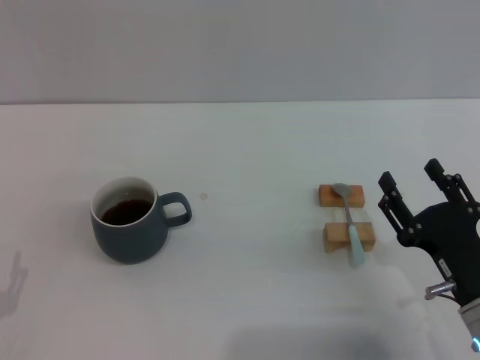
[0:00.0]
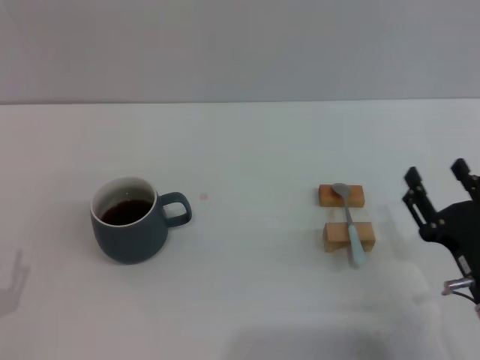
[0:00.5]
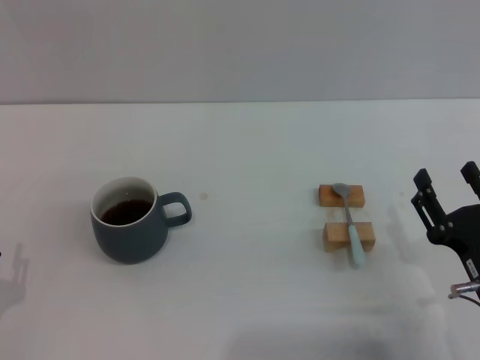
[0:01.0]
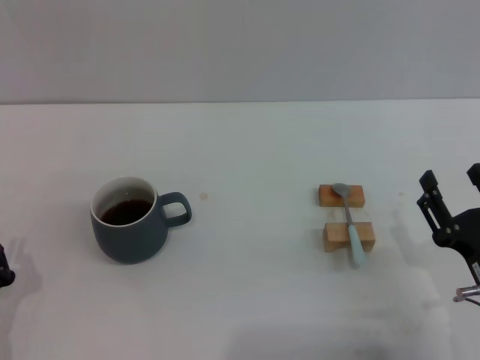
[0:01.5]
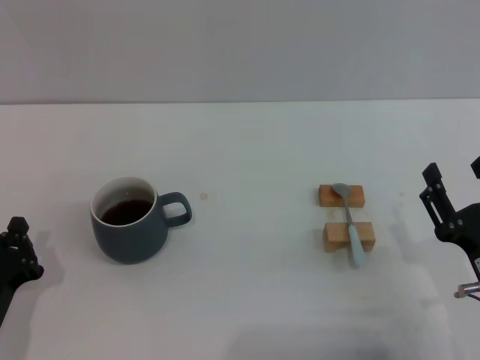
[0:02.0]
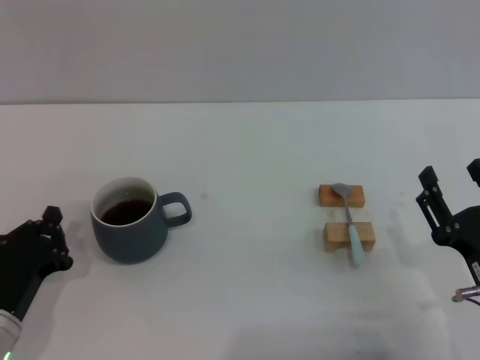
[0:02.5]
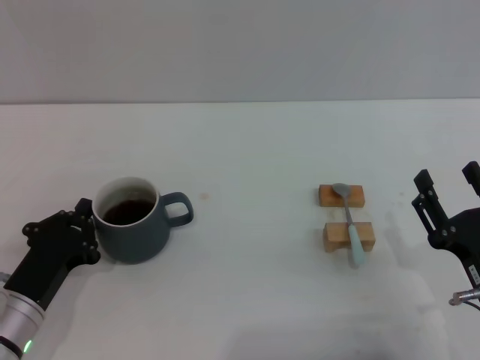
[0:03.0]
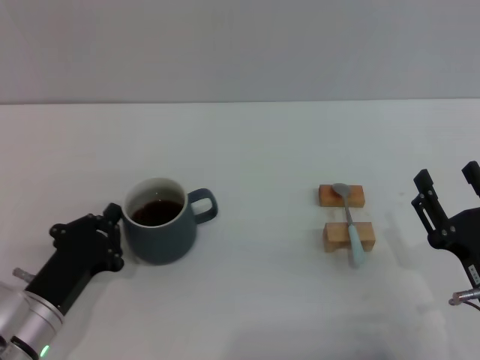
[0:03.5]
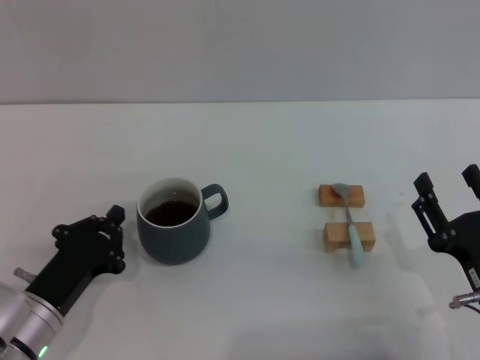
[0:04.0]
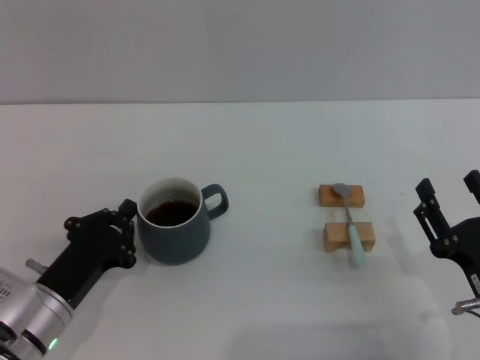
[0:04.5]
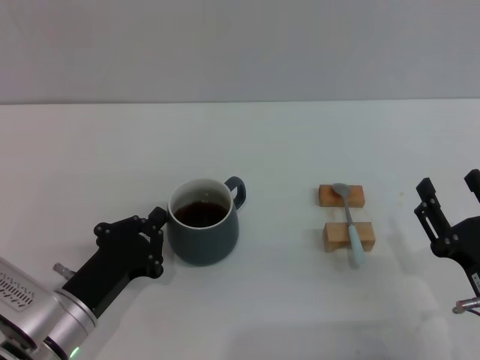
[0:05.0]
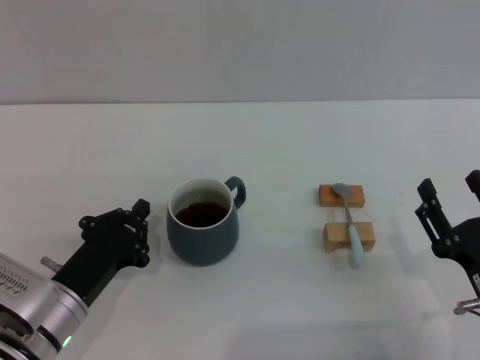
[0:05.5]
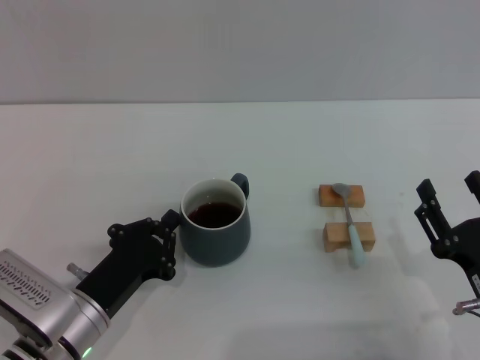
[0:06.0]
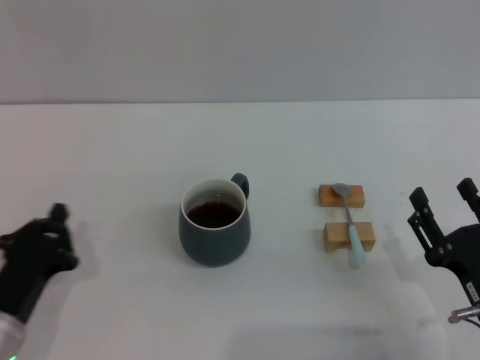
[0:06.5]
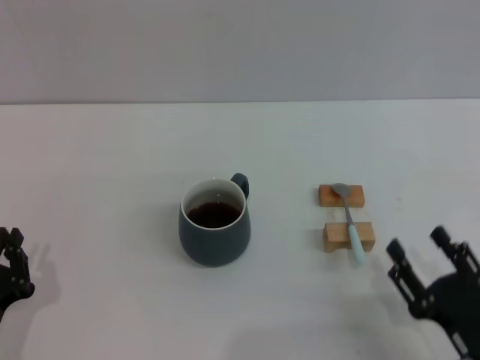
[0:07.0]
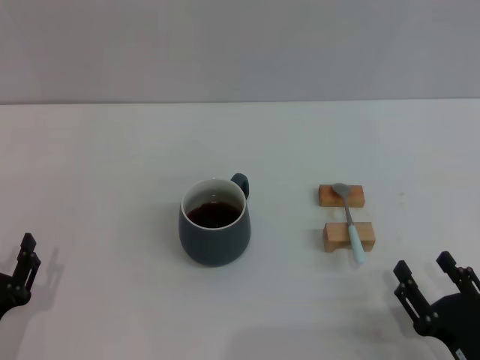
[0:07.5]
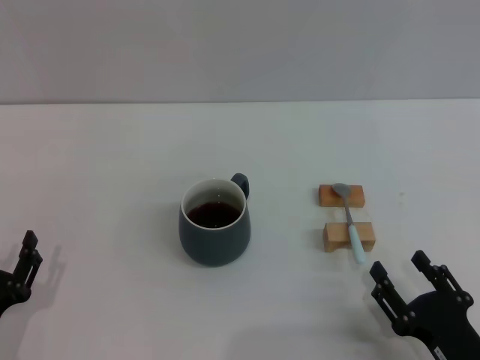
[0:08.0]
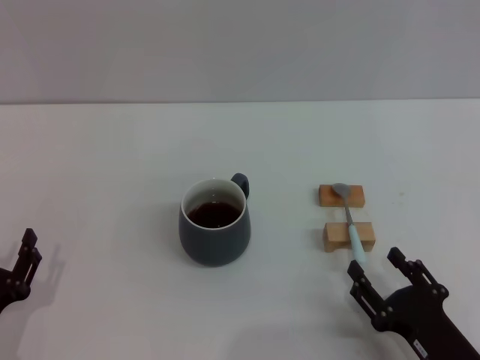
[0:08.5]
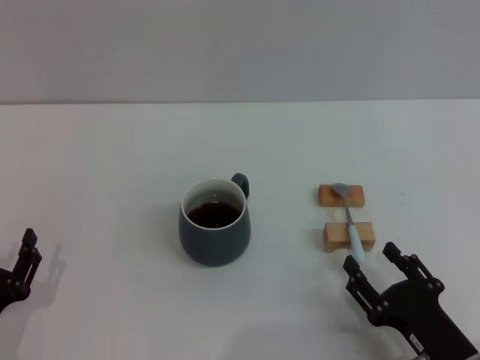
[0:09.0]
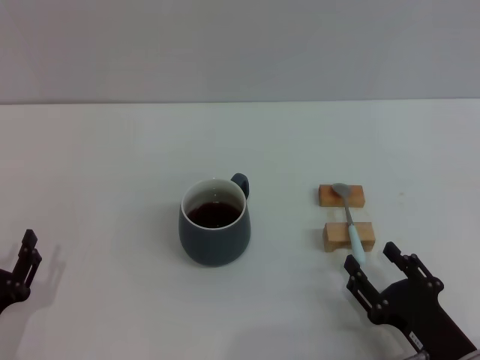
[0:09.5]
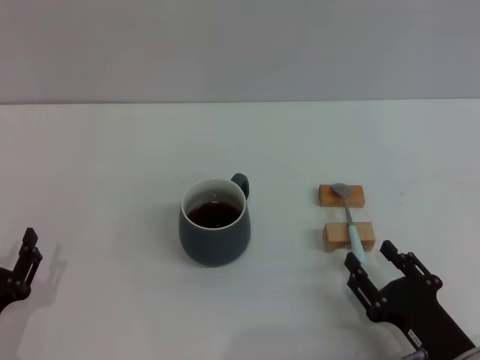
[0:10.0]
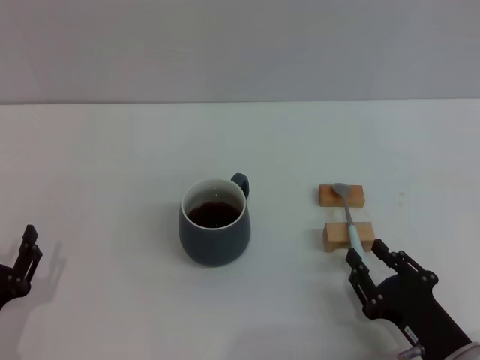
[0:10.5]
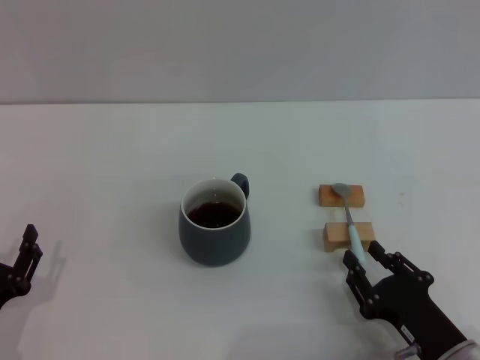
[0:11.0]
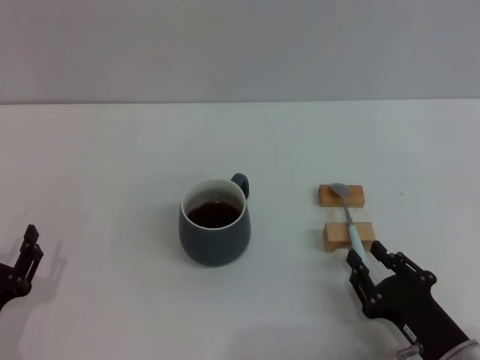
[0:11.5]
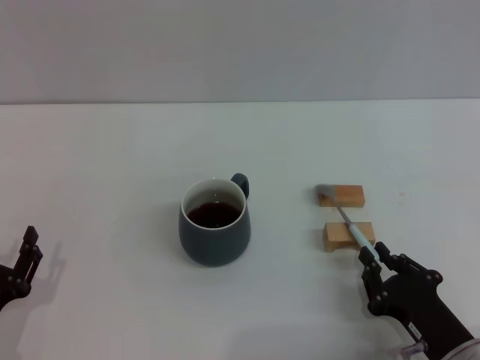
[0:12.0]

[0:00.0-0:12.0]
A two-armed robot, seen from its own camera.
Task of the whole recording: Move the grey cup to the center, lift the blue spoon, stir it three times in the cup, and put the spoon into the cup.
Step, 0:00.0 to 0:06.0: Move the cup with coffee to the center of view with the left gripper.
0:00.0 to 0:02.0: The left gripper moves roughly 5 cm, and closes up.
0:02.0 to 0:04.0: The left gripper ends up about 5 cm from where it was.
0:04.0 to 0:06.0: There are only small adjustments of the grippers.
0:06.0 to 0:08.0: The left gripper is displaced to the left and backward by approximately 10 cm, and opens its fingers. Meanwhile the right gripper shifts by some 5 cm.
0:08.0 to 0:10.0: The grippers move only a little.
0:10.0 to 0:12.0: The right gripper closes up.

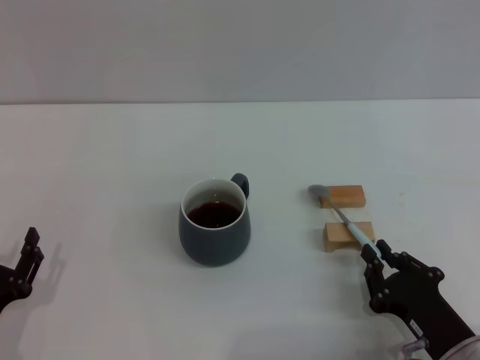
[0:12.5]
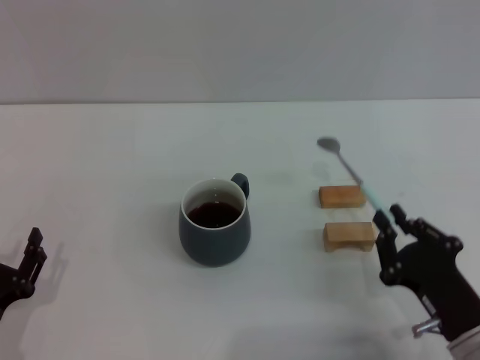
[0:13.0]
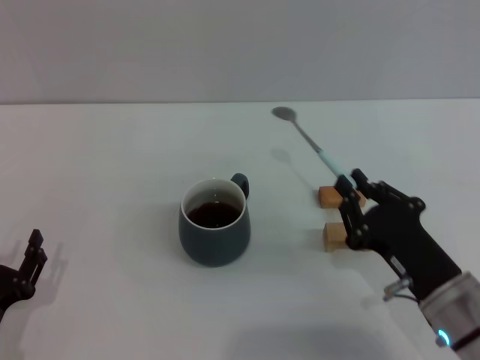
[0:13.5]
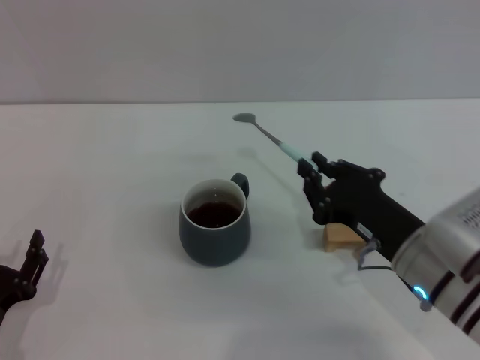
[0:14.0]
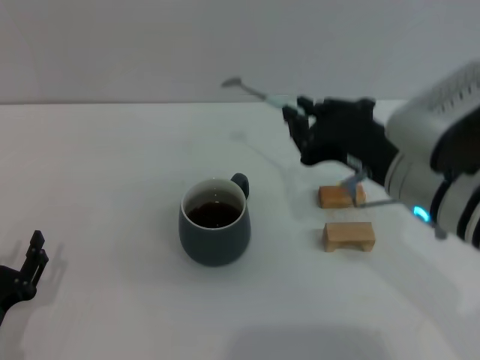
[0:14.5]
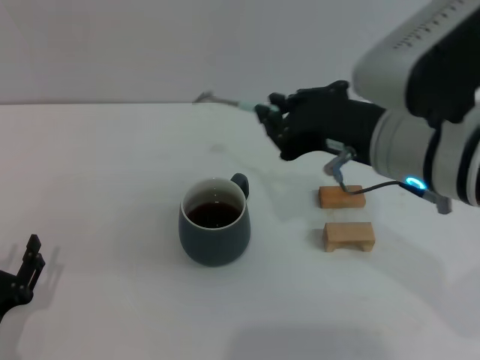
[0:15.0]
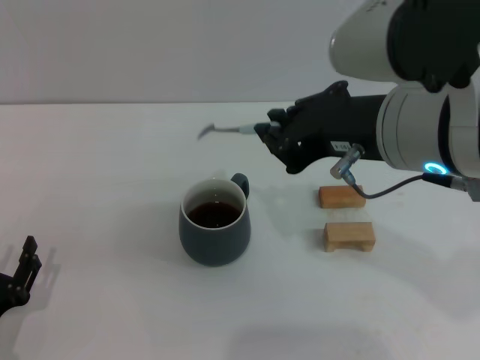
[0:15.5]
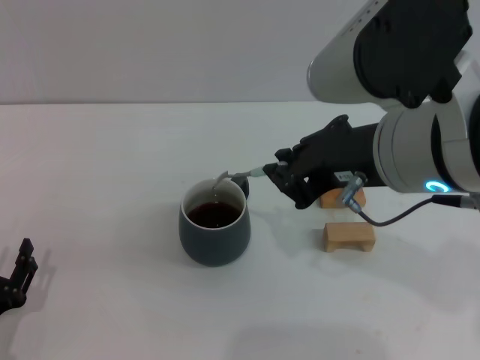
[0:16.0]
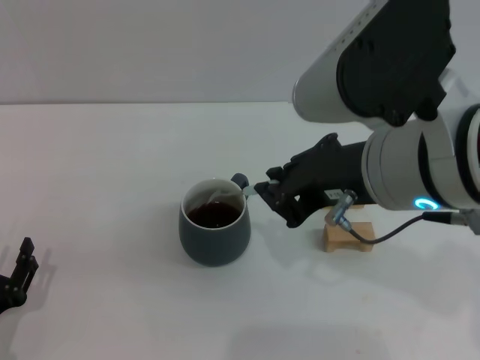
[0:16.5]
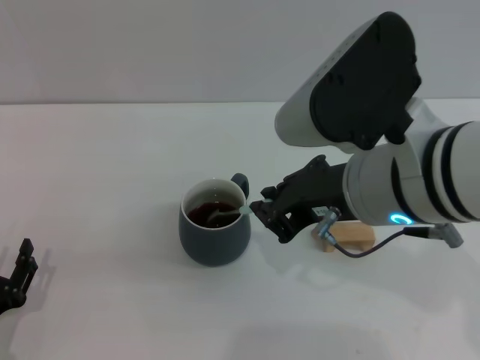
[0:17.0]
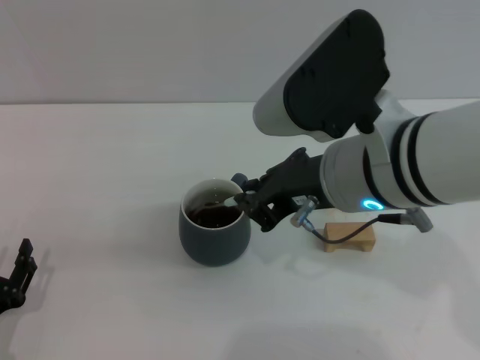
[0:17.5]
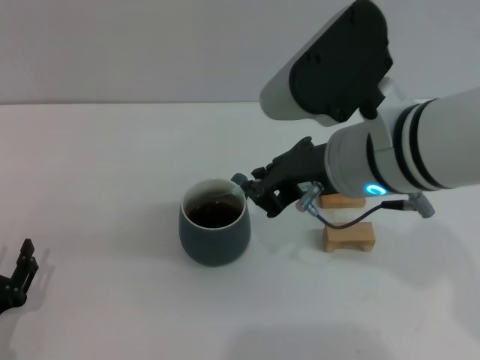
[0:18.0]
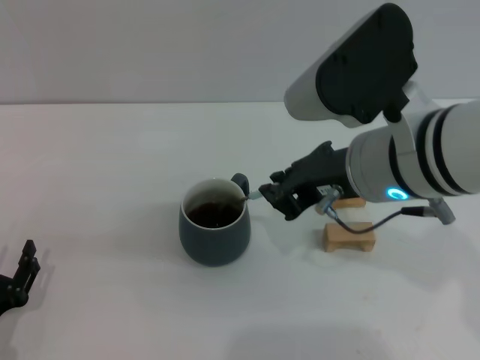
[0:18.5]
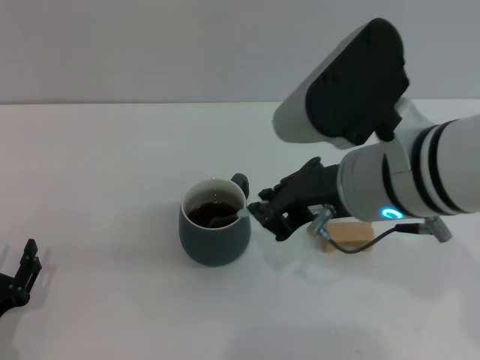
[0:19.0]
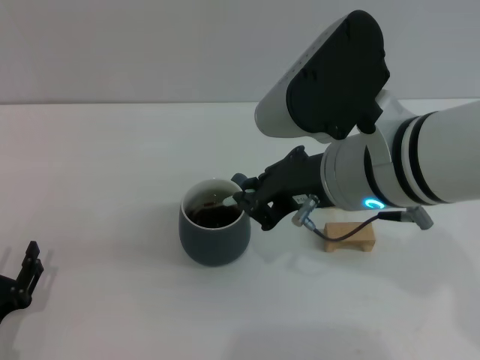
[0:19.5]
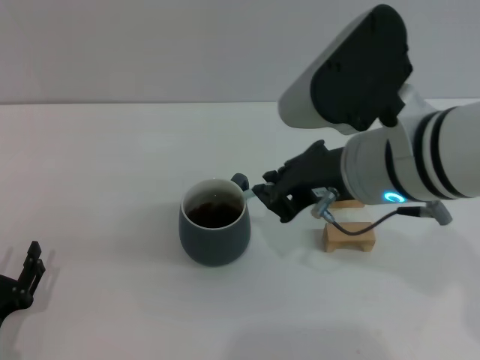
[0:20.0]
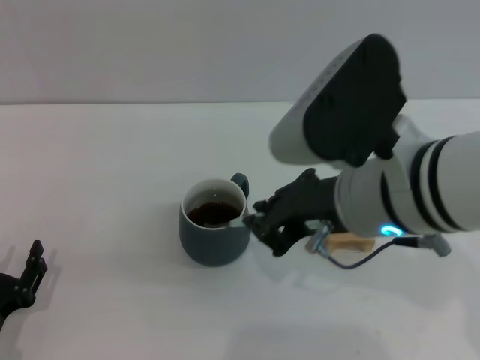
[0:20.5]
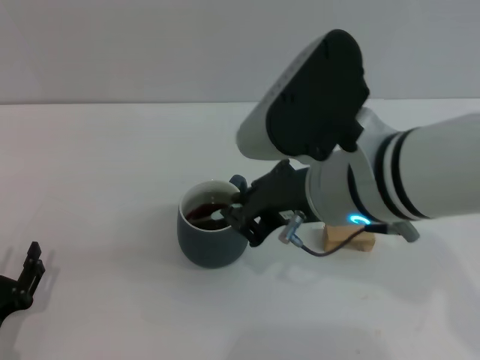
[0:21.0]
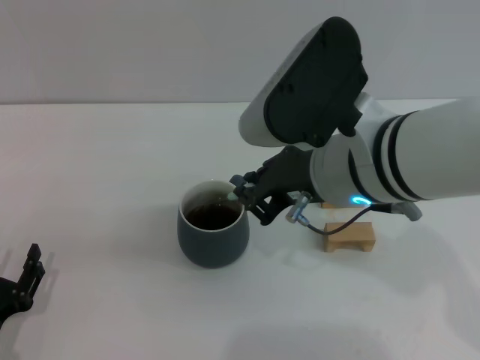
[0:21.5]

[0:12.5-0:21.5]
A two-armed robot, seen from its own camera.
Task of the whole recording: Move the grey cup to the center, lift the blue spoon, stir it three times in the cup, and put the spoon into the cup.
0:12.5 to 0:14.5: The right gripper moves upward and forward, approximately 20 cm.
0:14.5 to 0:17.0: The right gripper moves about 5 cm.
0:17.0 to 0:21.5: The grippers stay close to where they were, moving slightly.

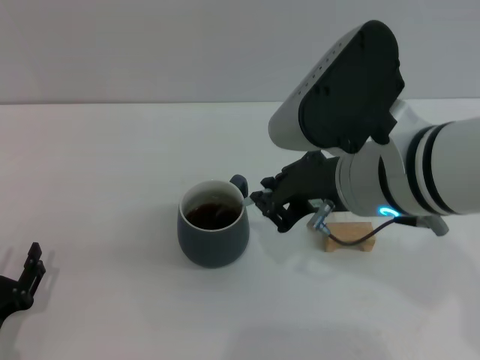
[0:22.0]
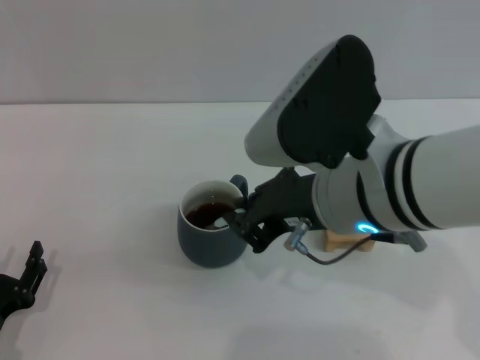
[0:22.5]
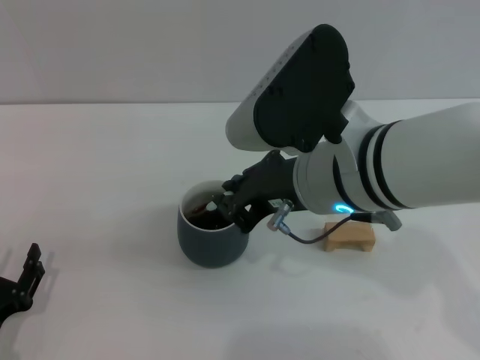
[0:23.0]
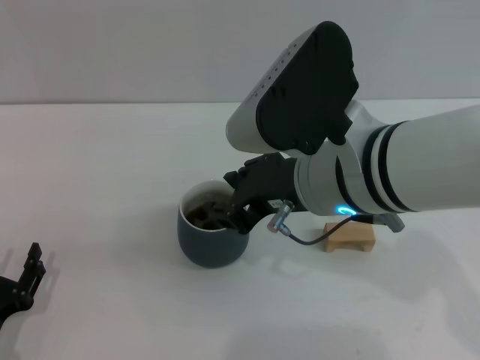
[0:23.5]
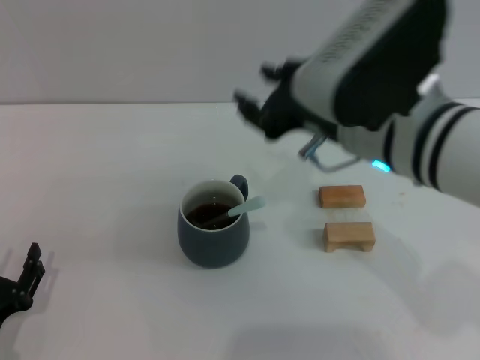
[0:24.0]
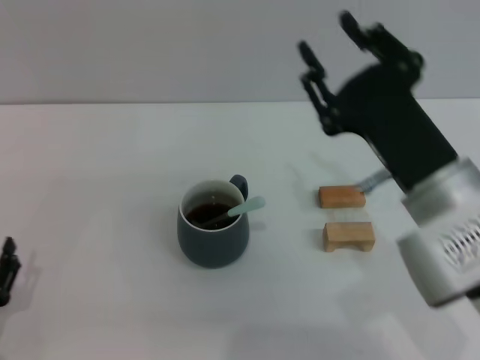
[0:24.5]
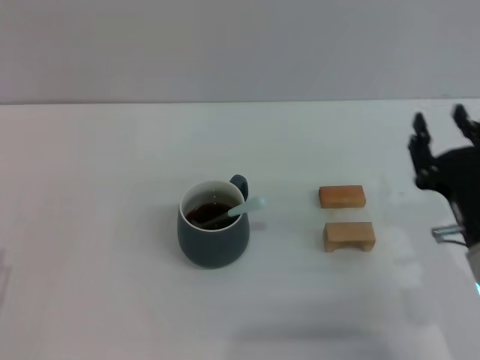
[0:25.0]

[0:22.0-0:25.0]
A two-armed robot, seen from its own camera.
Task of the whole recording: Move the grey cup to the center, lift the blue spoon, stir it three times in the cup, and put the spoon into the cup.
0:22.0 to 0:23.5: The grippers stay close to where they were, moving slightly.
0:23.5 to 0:25.0: The right gripper travels downward and to the right by approximately 20 cm, and opens its fingers.
